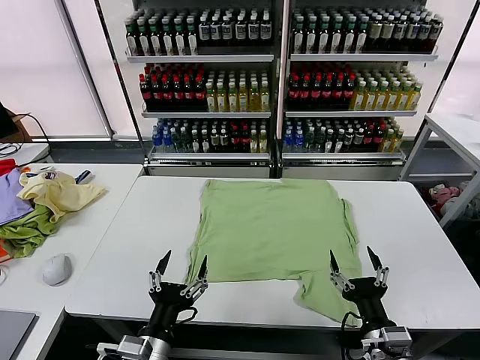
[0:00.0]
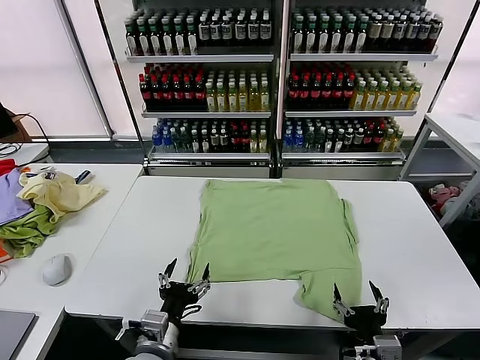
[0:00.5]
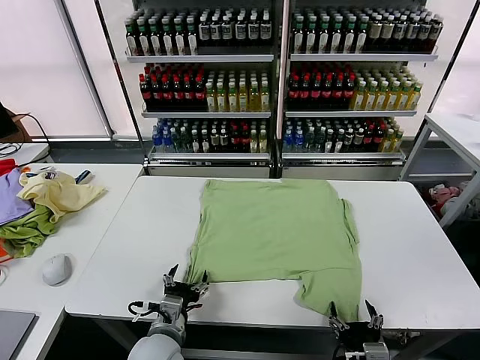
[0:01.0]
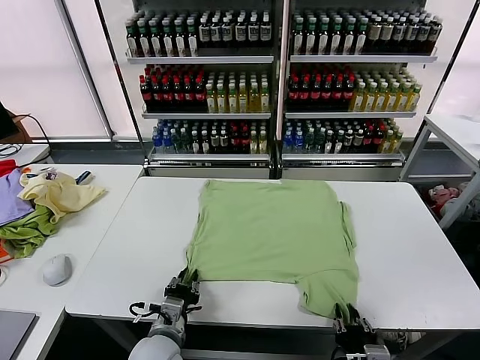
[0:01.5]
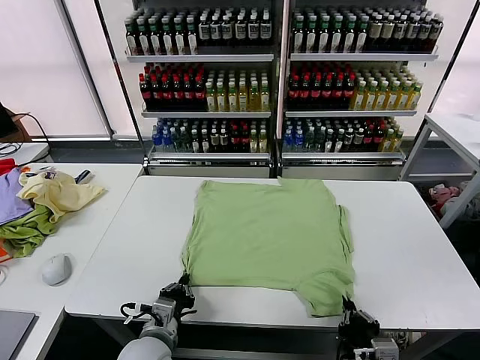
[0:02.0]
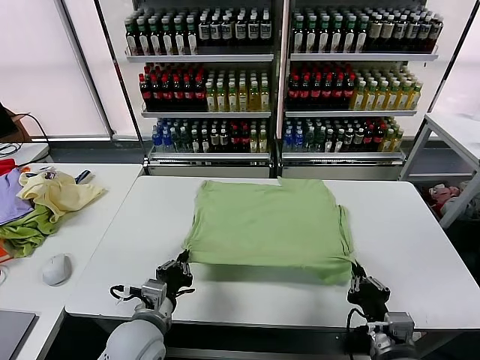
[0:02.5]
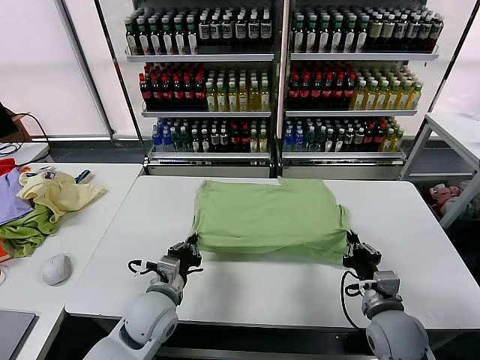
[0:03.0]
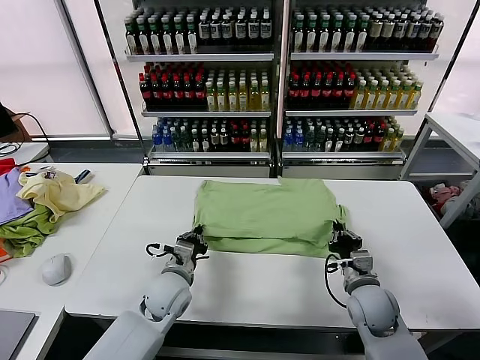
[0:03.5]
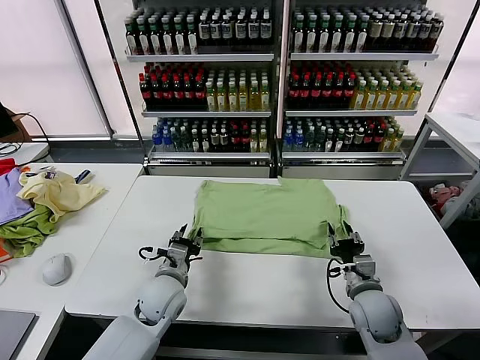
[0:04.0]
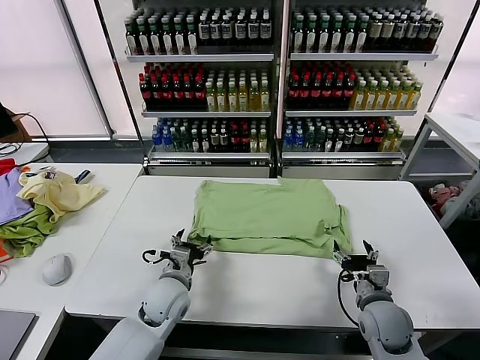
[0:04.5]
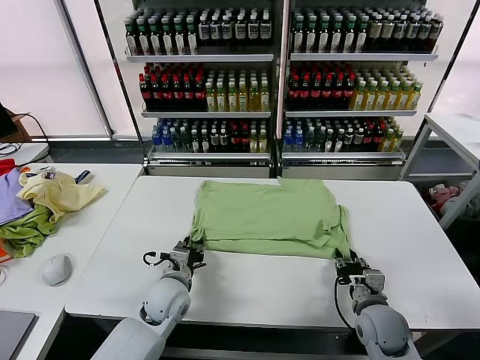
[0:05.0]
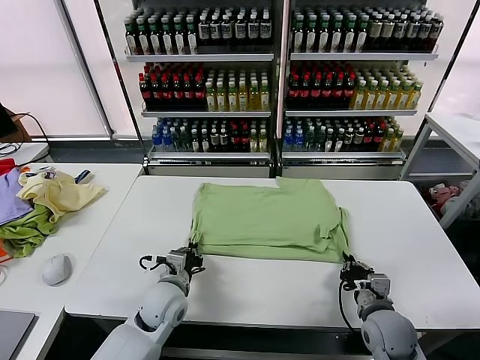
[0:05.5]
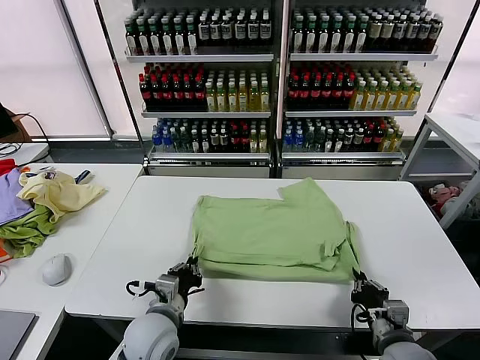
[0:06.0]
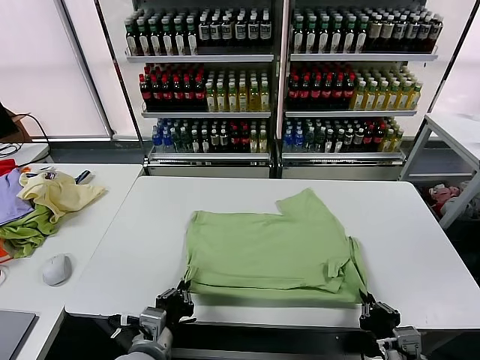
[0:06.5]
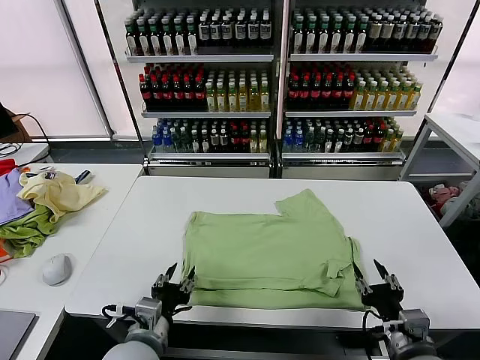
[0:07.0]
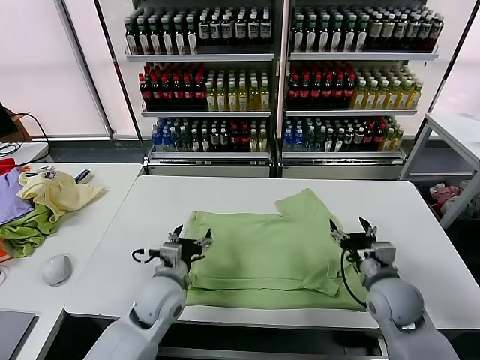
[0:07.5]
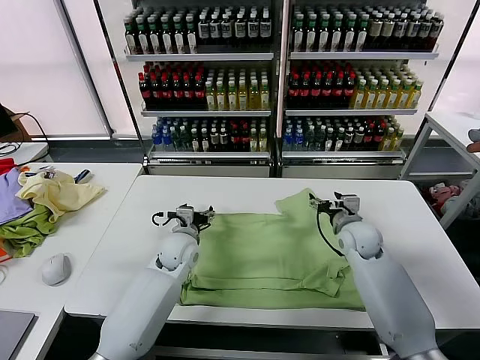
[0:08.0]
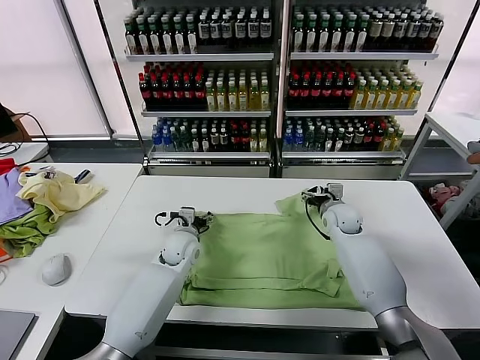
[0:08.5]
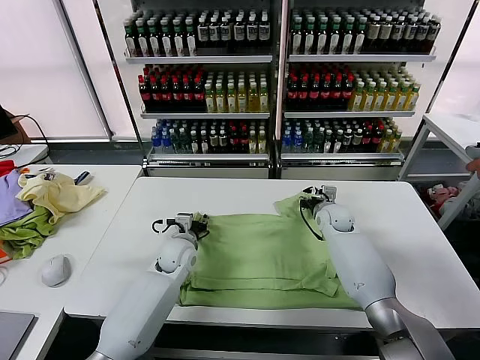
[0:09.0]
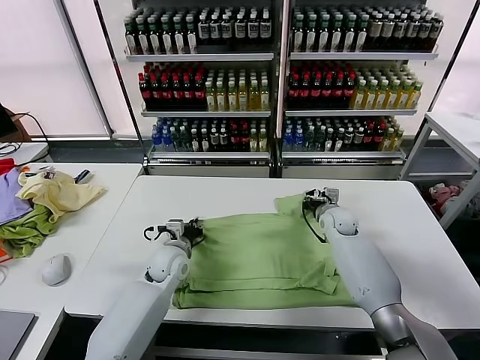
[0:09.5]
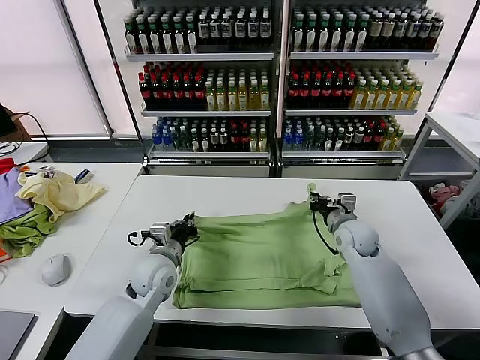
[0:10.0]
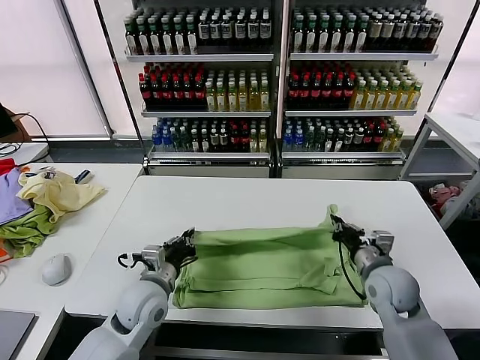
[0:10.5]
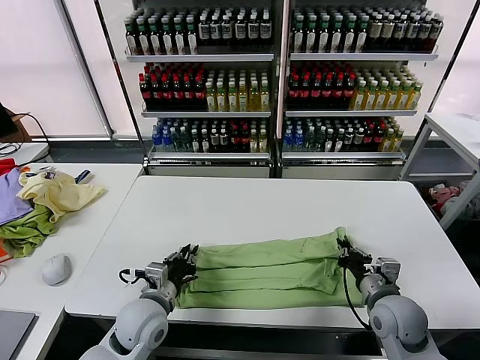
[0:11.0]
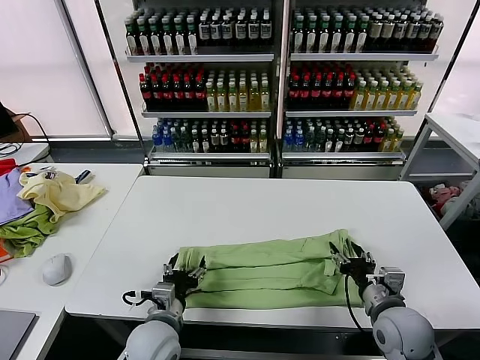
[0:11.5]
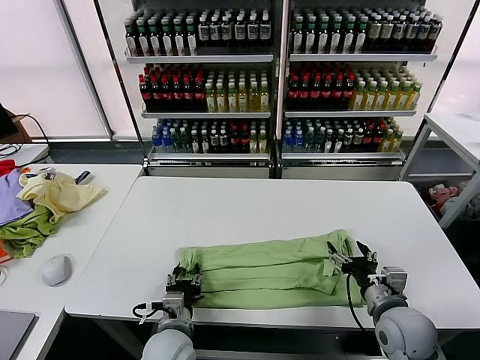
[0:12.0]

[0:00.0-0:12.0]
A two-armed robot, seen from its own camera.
Task of the whole recording: fold and organize the clothes.
Step, 0:00.0 to 0:01.5: use both grippers simultaneously to clamp the lower edge of the clothing fabric.
Step, 0:02.0 to 0:04.0: use both grippers to drag the lower edge of the fabric forward and fold it over the upper edge.
Step, 0:04.5 to 0:06.5: Drag the clothes downward with both gripper.
Step, 0:07.0 to 0:09.0: use both grippers simultaneously to clamp the upper edge of the clothing fabric.
Step, 0:10.0 to 0:11.0: use both grippers to drag the upper edge of the fabric backward and fold it over the lower edge.
0:02.0 to 0:04.0: Both grippers travel together forward, some 15 cm. The right gripper opens its fingers; the left gripper opens its fingers.
0:04.0 to 0:06.0: The grippers both shift backward by approximately 10 cm. The left gripper closes its fingers; the right gripper closes.
0:06.0 to 0:08.0: The right gripper travels forward by some 30 cm, and opens, while the left gripper is displaced forward by approximately 20 cm, and opens.
0:08.0 to 0:10.0: The right gripper goes forward and returns, some 10 cm each way, and closes, while the left gripper heads backward, covering some 5 cm, and closes its fingers.
0:10.0 to 0:12.0: The two grippers go about 20 cm backward. The left gripper opens up, while the right gripper opens up.

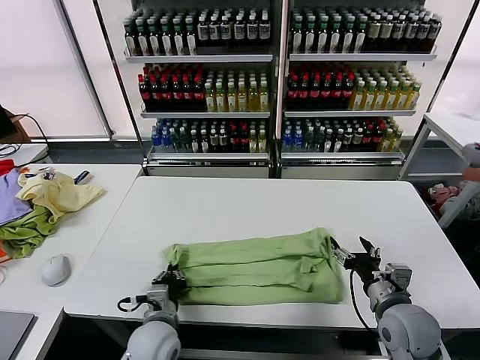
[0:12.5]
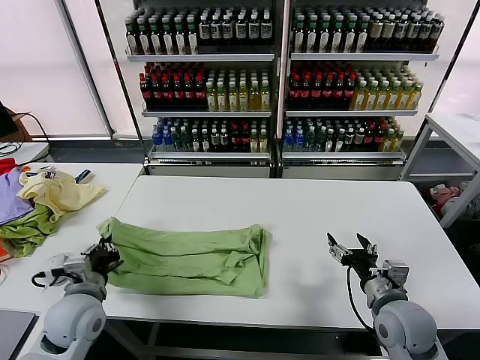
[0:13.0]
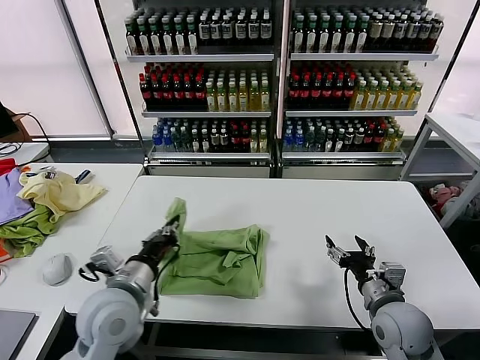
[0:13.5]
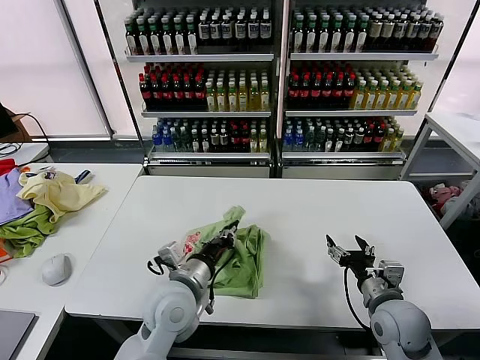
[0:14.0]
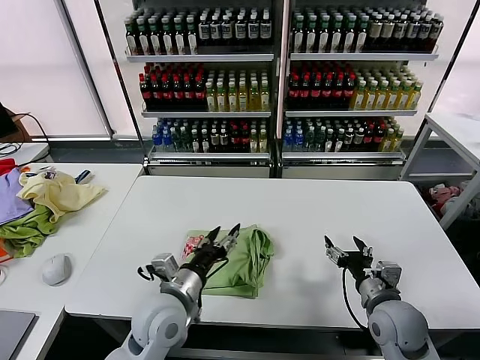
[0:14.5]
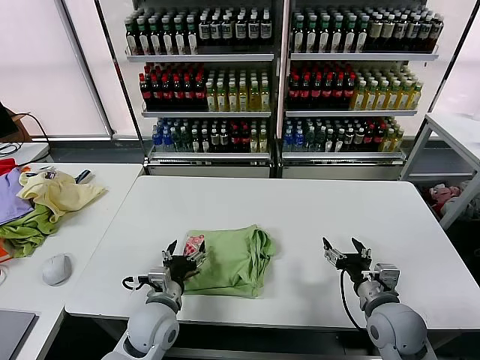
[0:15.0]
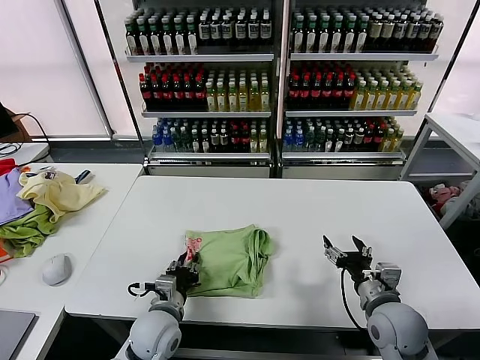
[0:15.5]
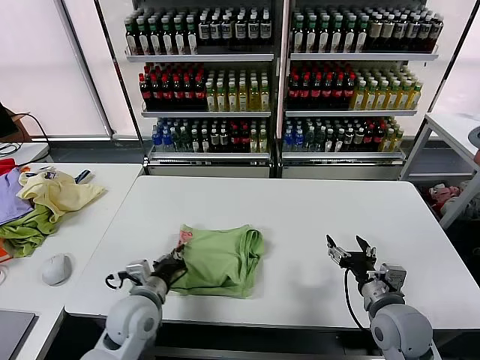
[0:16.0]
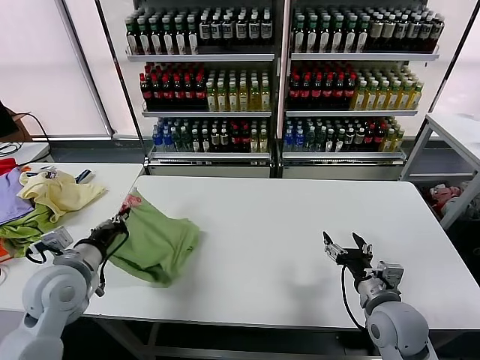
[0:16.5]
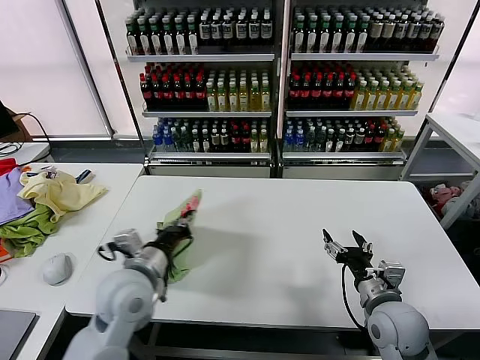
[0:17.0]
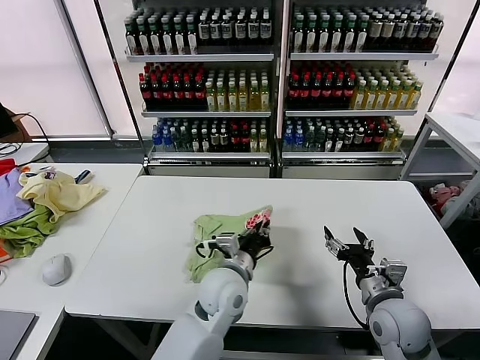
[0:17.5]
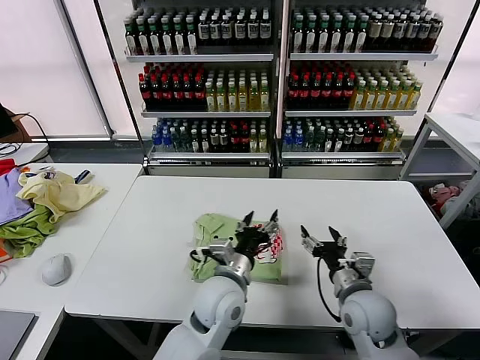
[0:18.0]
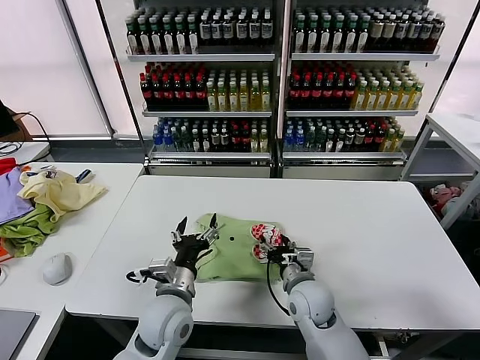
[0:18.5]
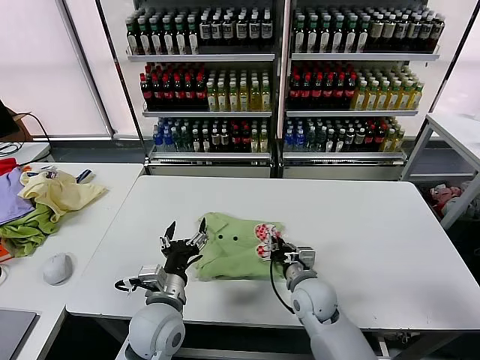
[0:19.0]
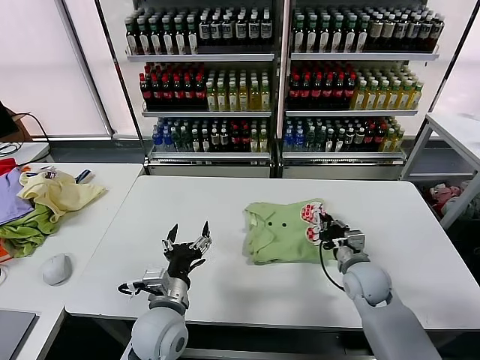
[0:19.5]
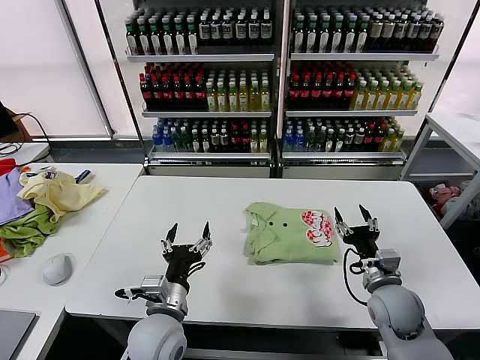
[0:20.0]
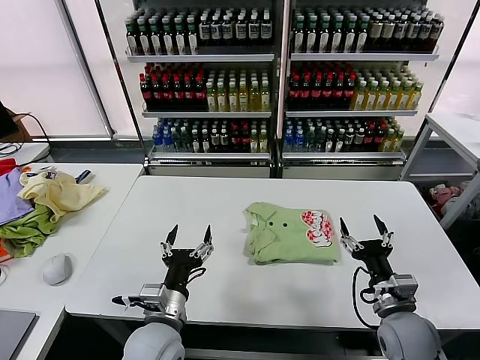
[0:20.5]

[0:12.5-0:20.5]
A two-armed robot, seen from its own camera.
Task of the whole recording: fold and organize the clothes.
Step, 0:13.0 to 0:14.0: use the left gripper to drag the left edge of the fabric to the left and folds it over the right edge.
Step, 0:14.5 to 0:17.5: Flip the folded clothes over with left gripper.
Step, 0:18.0 to 0:19.5: Drag the clothes to the center of the table.
0:12.5 to 0:14.5: The left gripper heads upward, covering some 10 cm, goes to the left and returns, roughly 15 cm each way, and opens its fingers.
0:14.5 to 0:16.5: The left gripper heads to the left, covering roughly 20 cm, and closes.
0:16.5 to 0:18.5: The right gripper is displaced to the left and forward by about 15 cm, while the left gripper shifts roughly 20 cm to the right, and opens up.
0:18.5 to 0:20.5: The right gripper is displaced to the right and backward by about 20 cm, and closes and opens again, while the left gripper is displaced backward by about 5 cm.
